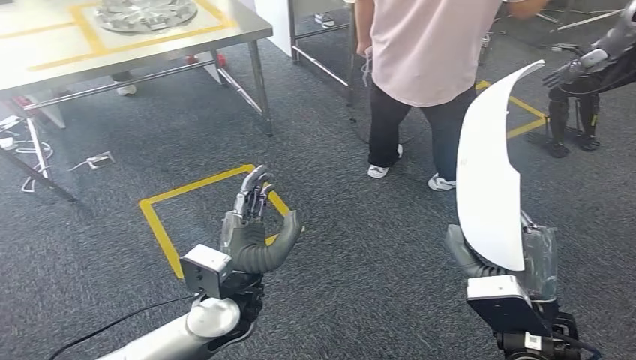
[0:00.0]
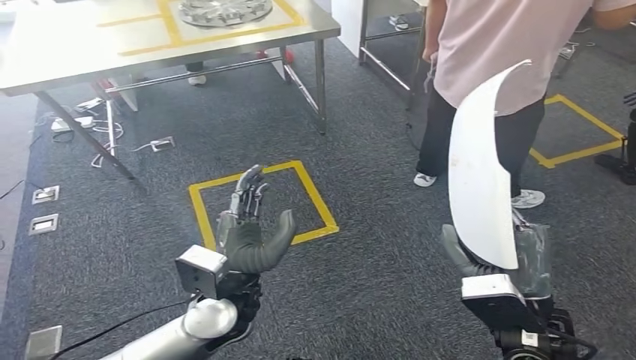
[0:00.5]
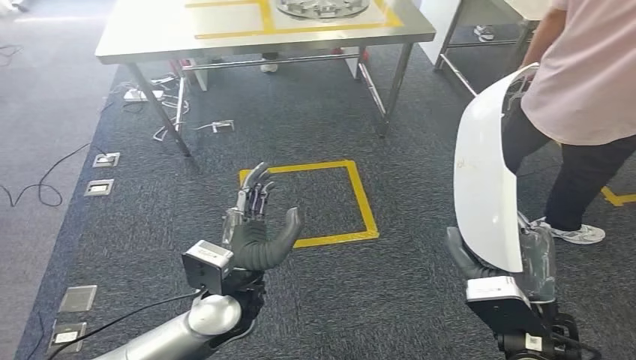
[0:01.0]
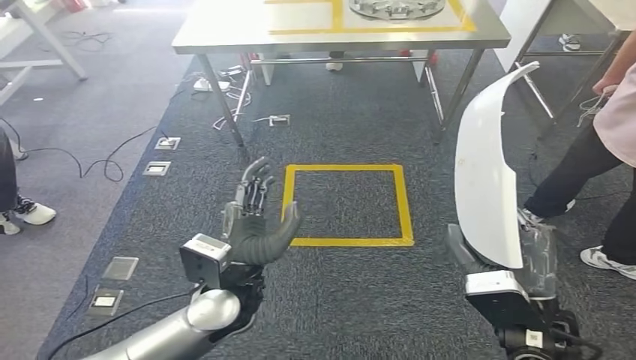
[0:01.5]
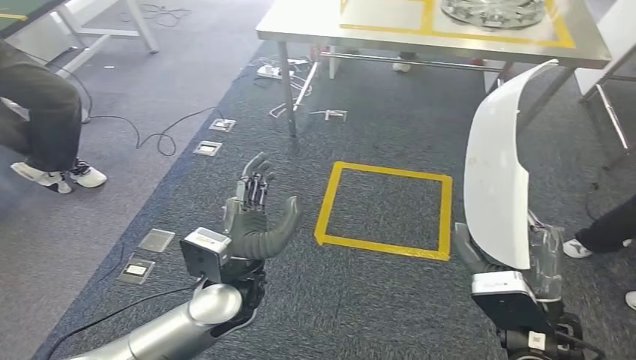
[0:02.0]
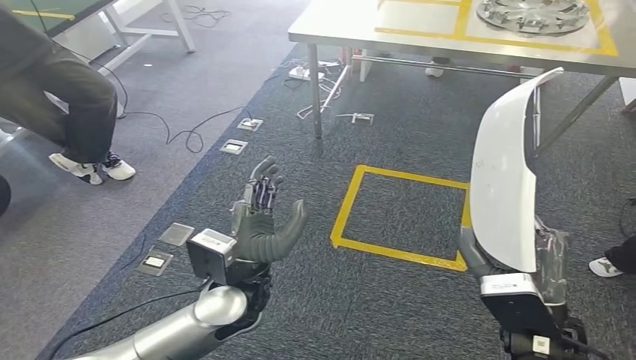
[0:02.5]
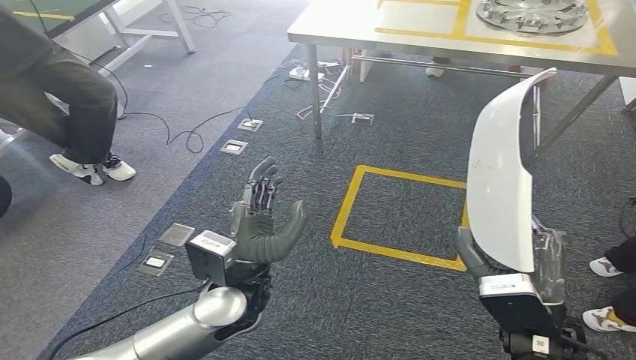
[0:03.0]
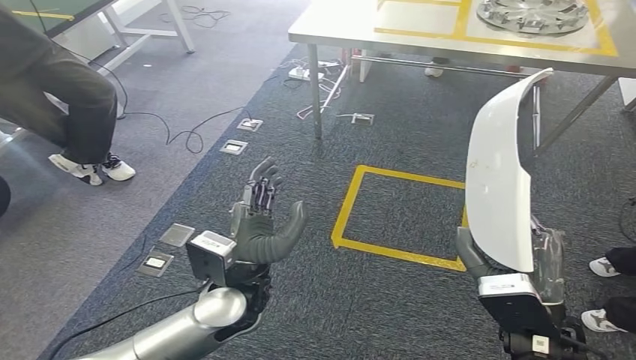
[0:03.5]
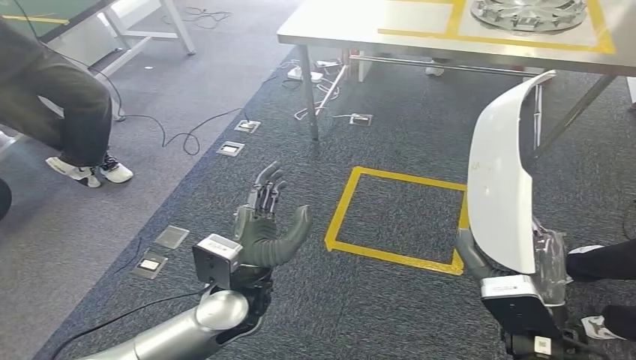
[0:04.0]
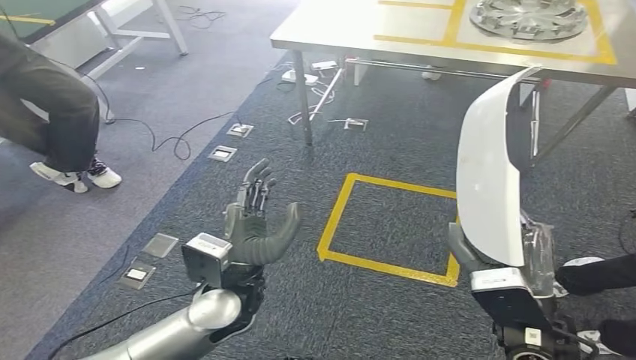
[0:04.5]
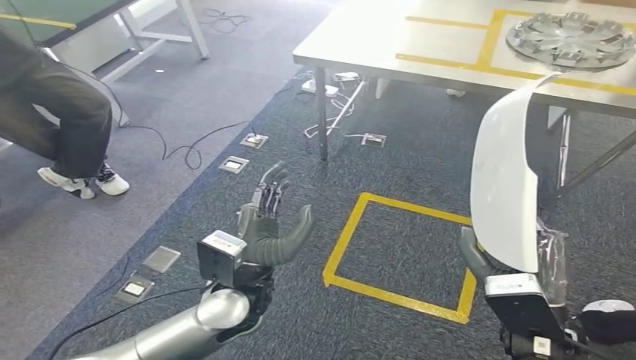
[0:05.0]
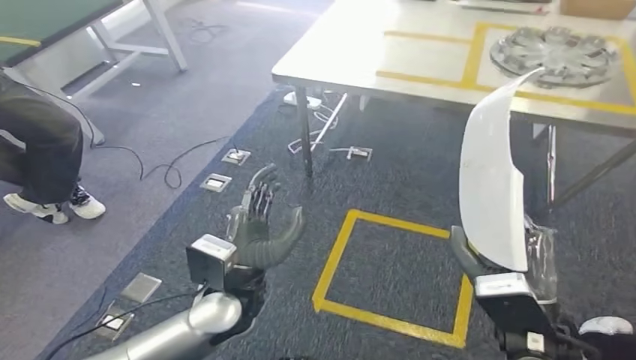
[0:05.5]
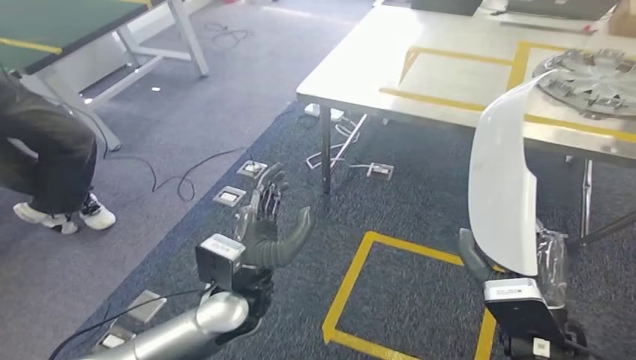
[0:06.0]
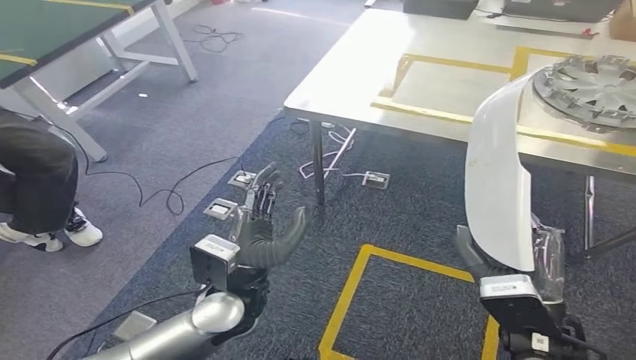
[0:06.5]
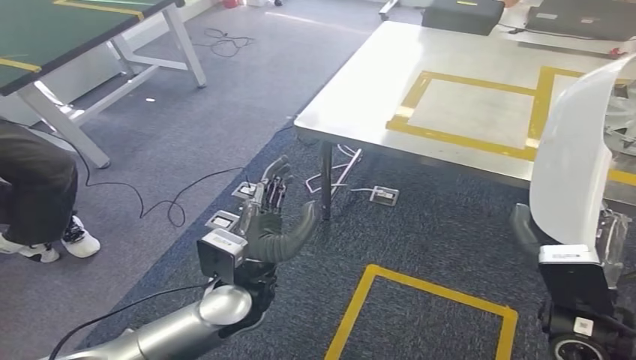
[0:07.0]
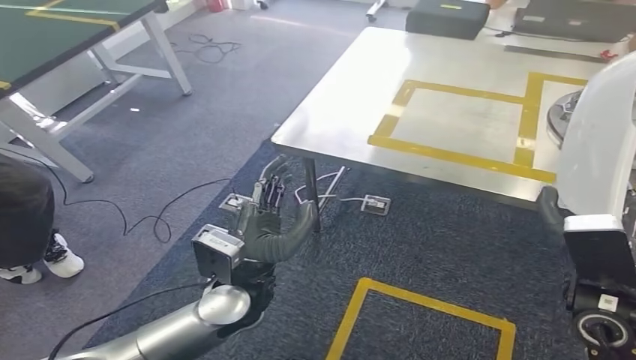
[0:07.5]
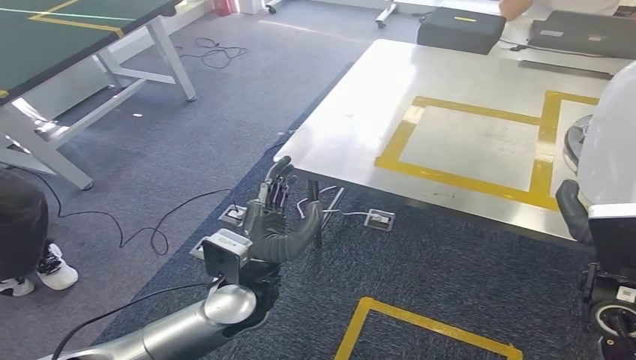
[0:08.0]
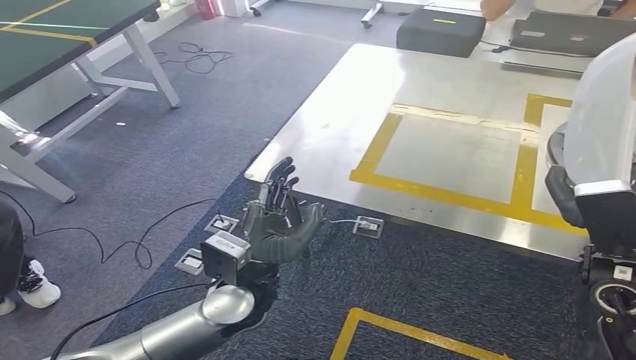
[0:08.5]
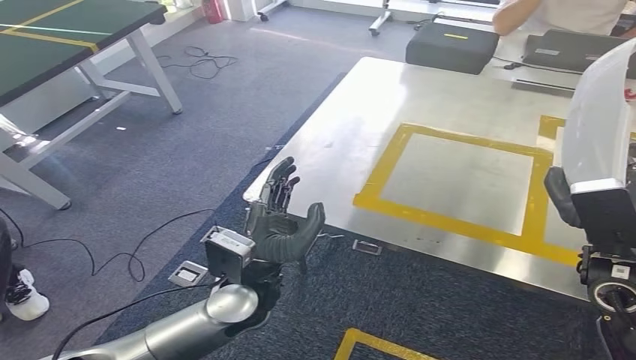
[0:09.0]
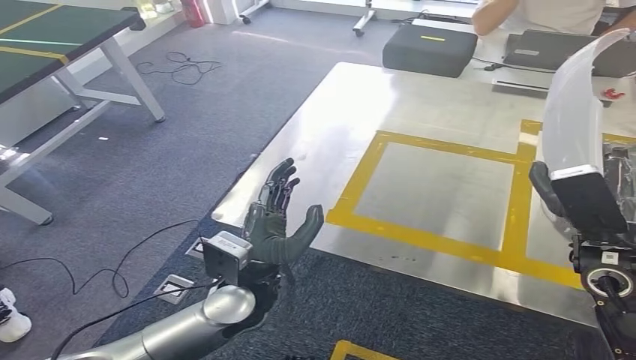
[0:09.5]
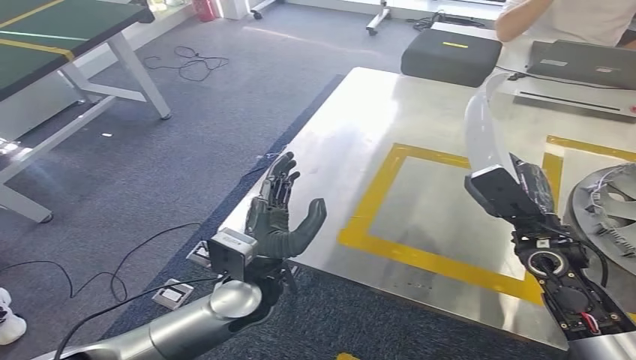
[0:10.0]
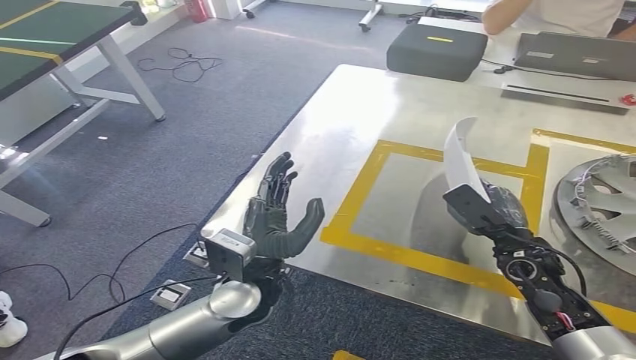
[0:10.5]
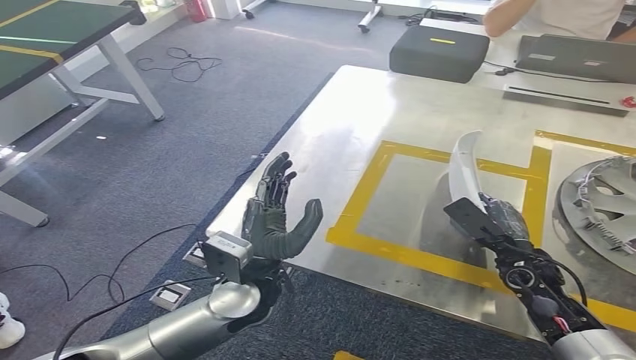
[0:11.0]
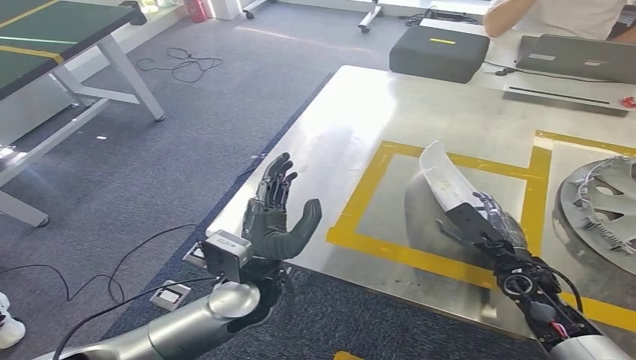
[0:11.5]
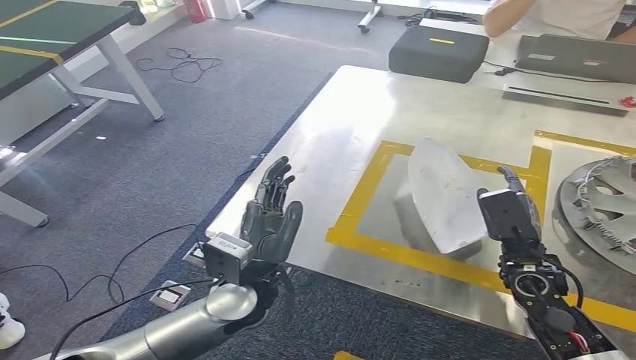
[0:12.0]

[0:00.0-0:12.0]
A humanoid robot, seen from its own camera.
Step, 0:00.0 to 0:07.5: Move the small parts to the workbench.

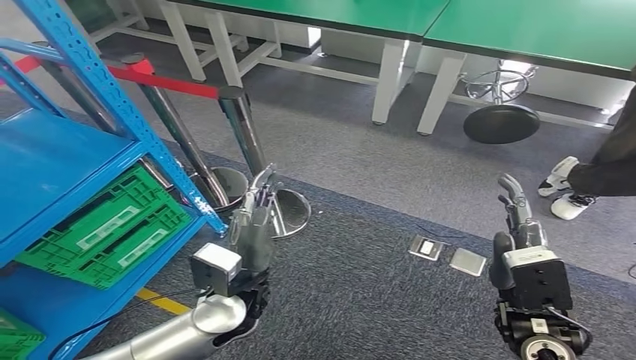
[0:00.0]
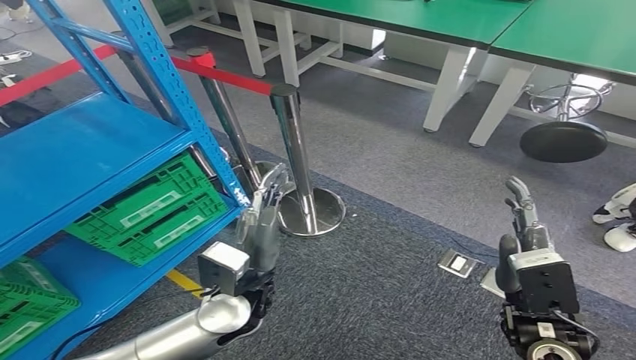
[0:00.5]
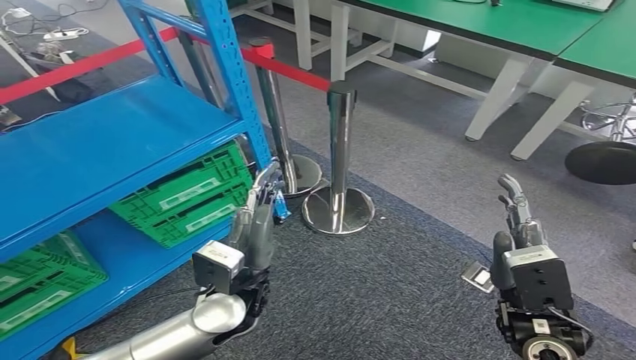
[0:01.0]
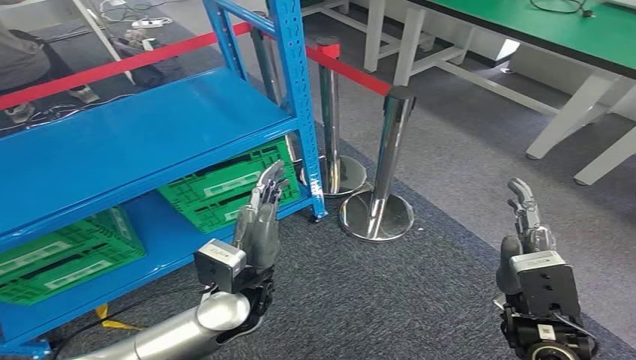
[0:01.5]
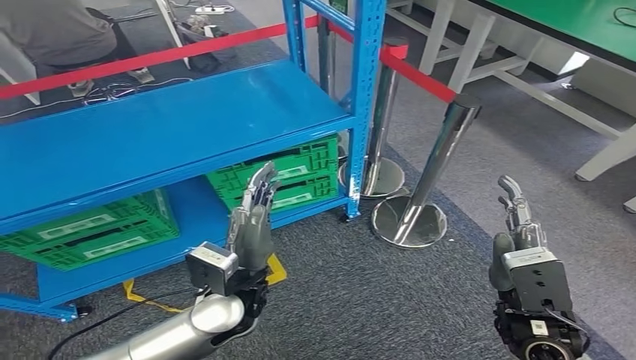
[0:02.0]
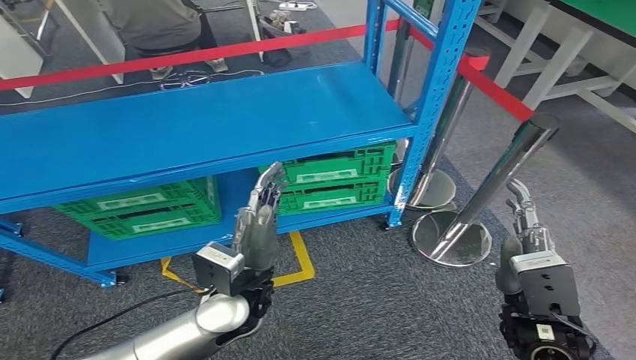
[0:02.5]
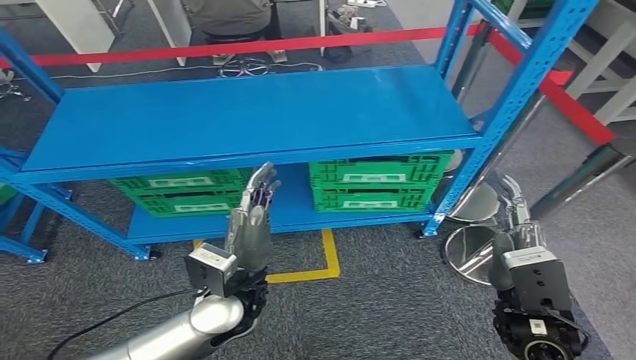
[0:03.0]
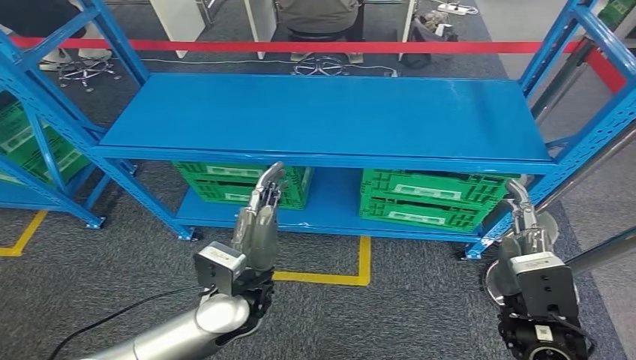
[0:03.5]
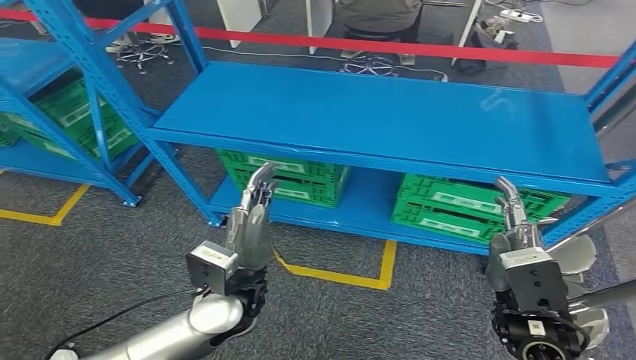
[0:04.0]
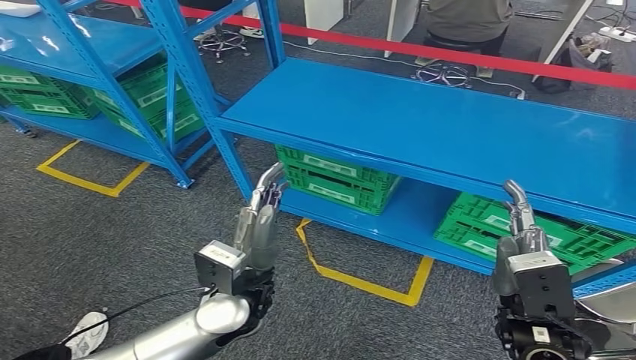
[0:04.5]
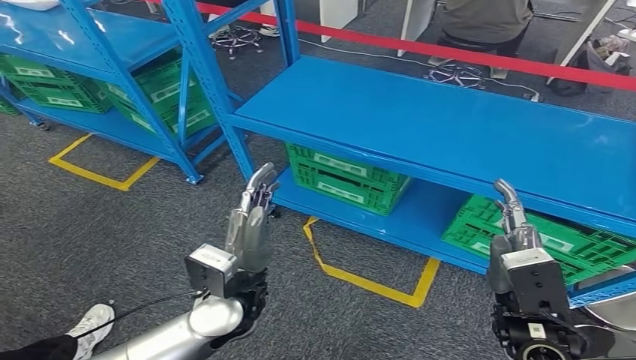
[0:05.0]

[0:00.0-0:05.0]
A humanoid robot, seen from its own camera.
Step, 0:00.0 to 0:05.0: Move to the initial position at the workbench.
